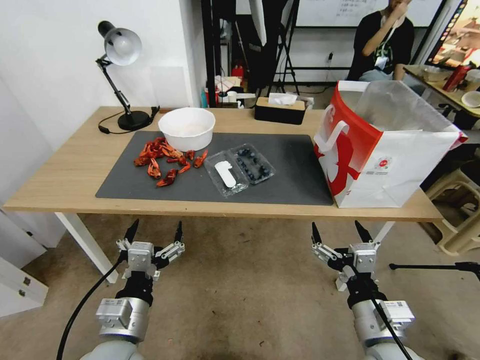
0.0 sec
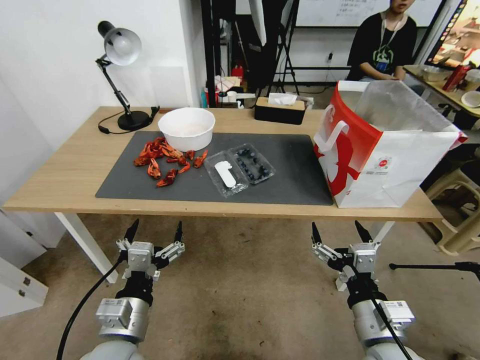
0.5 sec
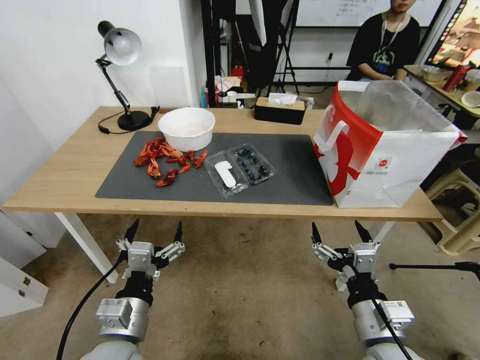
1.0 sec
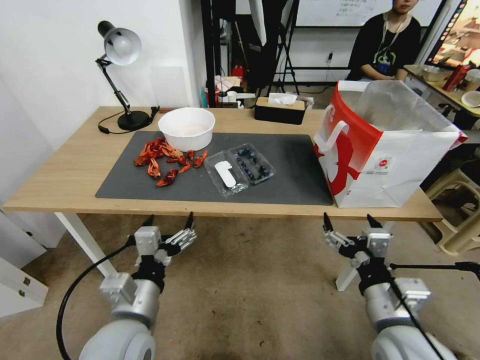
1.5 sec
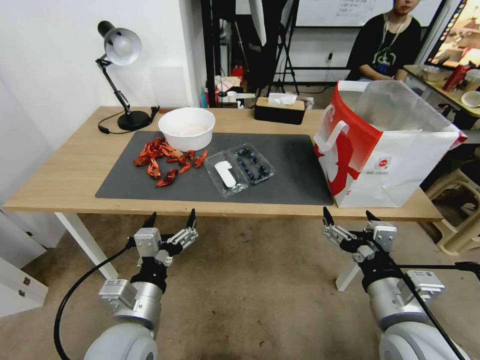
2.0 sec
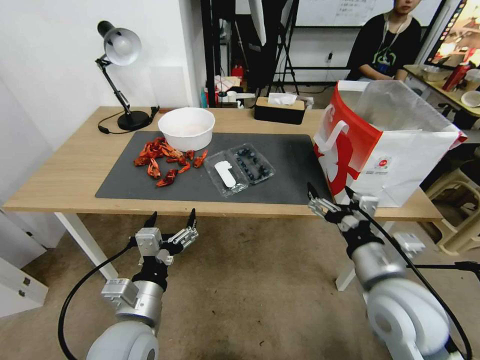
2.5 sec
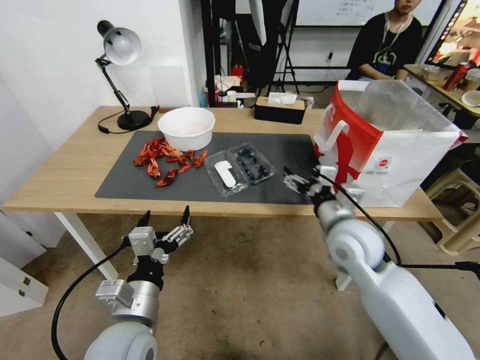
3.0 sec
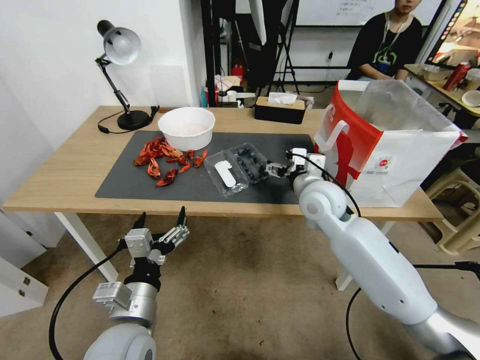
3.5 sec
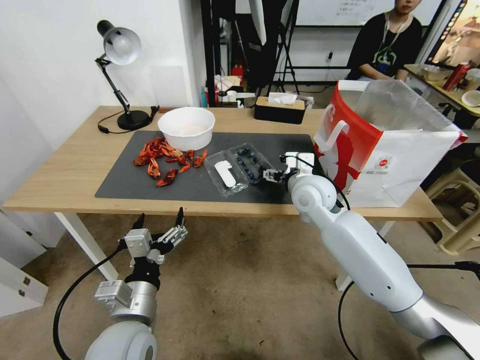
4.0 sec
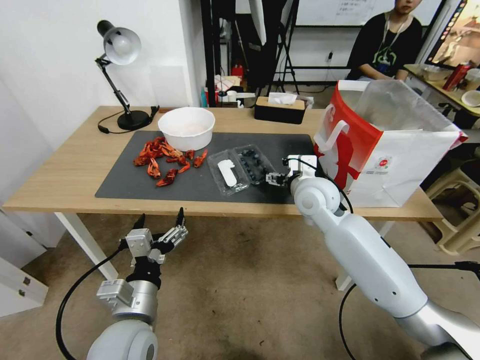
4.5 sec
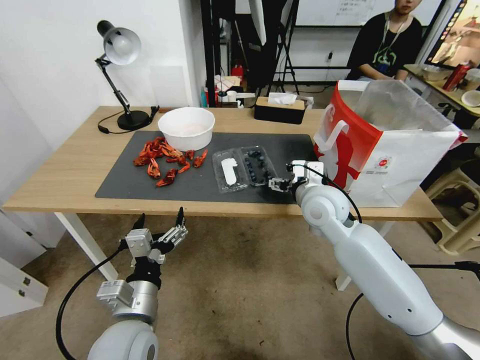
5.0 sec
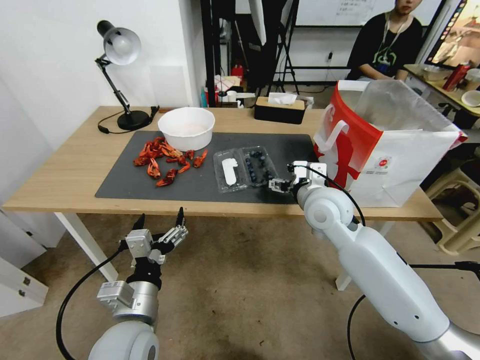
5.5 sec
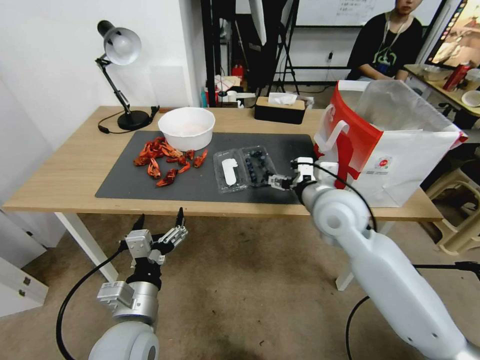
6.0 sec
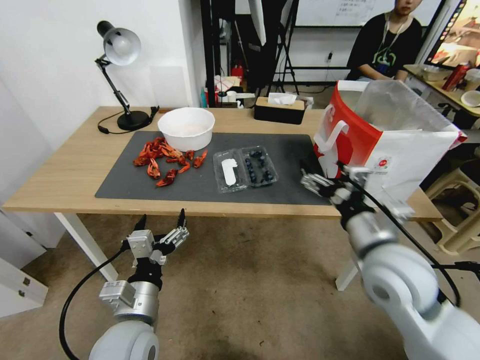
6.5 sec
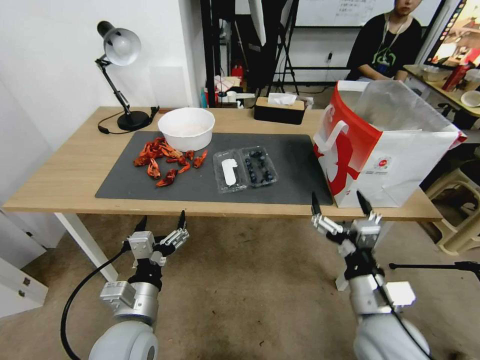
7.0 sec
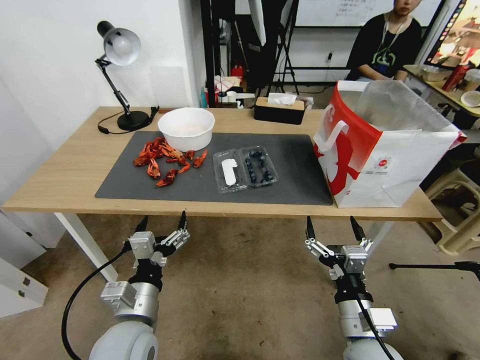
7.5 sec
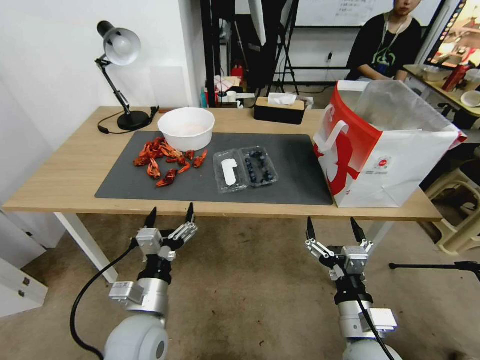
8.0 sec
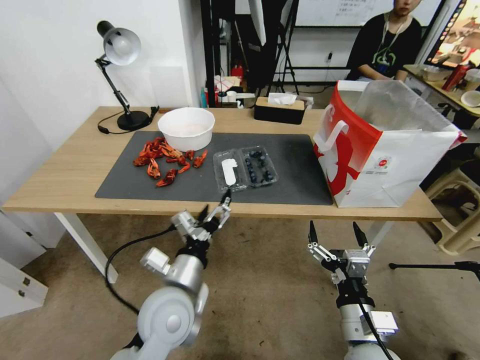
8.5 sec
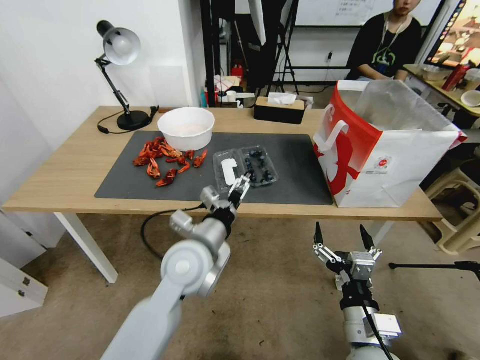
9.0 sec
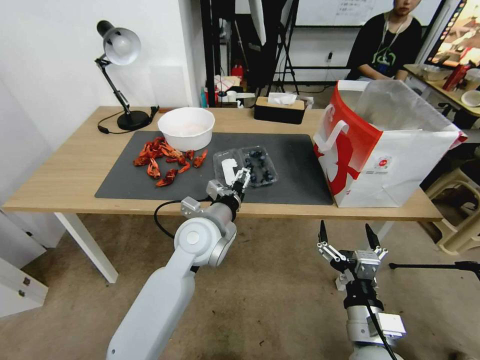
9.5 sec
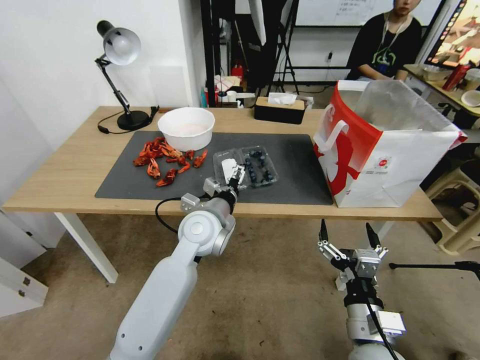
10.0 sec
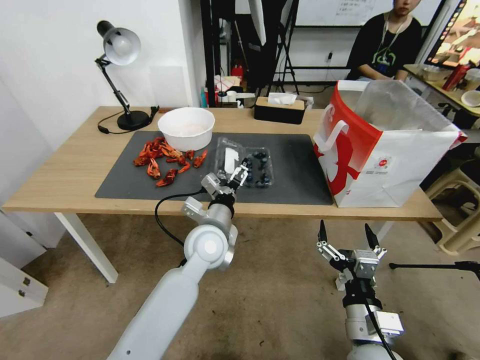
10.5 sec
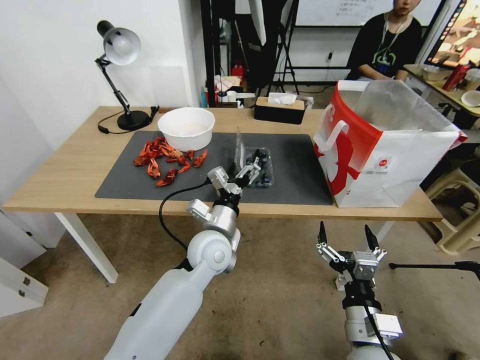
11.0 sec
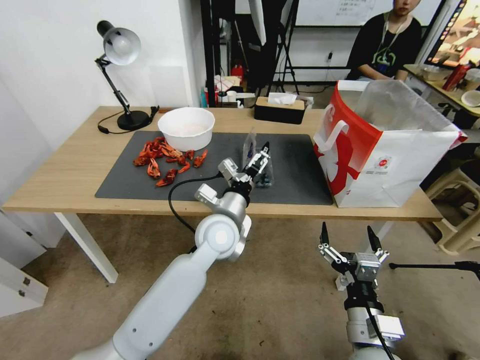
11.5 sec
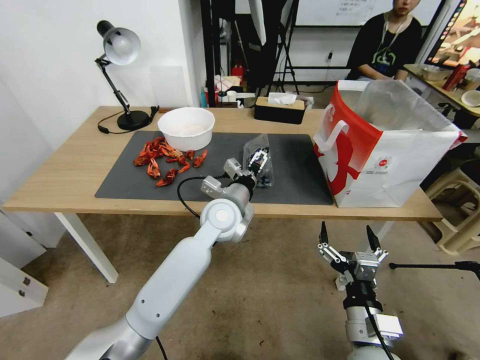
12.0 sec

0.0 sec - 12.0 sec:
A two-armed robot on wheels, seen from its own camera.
Task of the whole recording: Close the takeout container lid, then place the container into the takeout bag.
2.0 sec - 4.0 sec: The right gripper goes approximately 30 cm forward.
4.0 sec - 6.0 sec: The right gripper heads backward, covering approximately 10 cm.
6.0 sec - 8.0 sec: The right gripper shifts roughly 25 cm backward and downward.
8.0 sec - 10.0 sec: The left gripper shifts some 20 cm forward and to the right.
10.0 sec - 12.0 sec: The left gripper ends up approximately 5 cm from where it was.

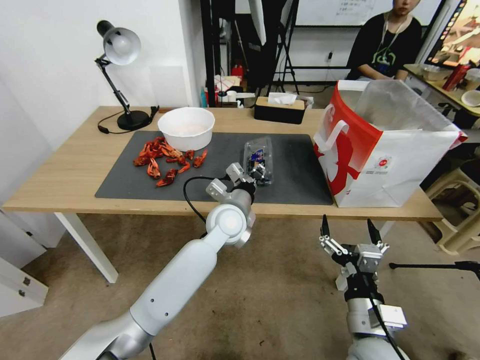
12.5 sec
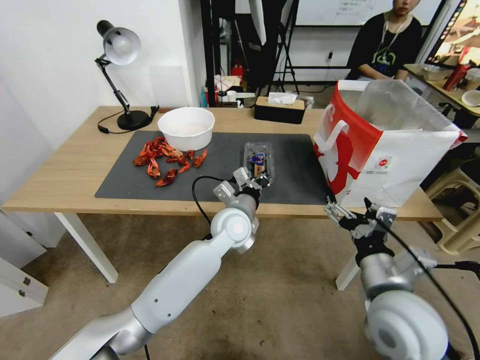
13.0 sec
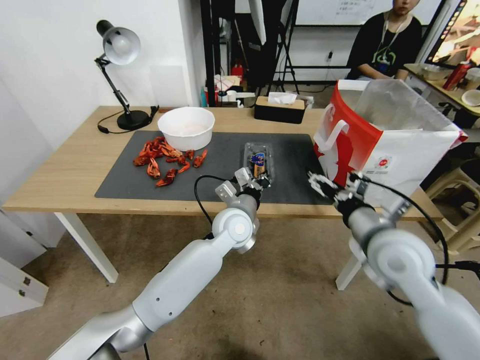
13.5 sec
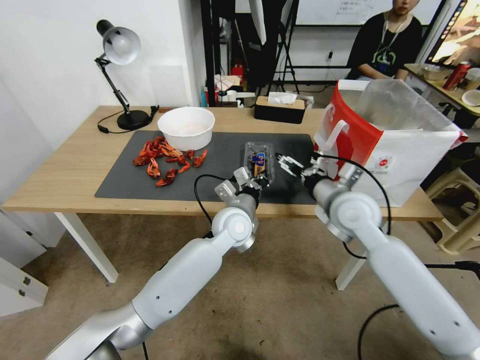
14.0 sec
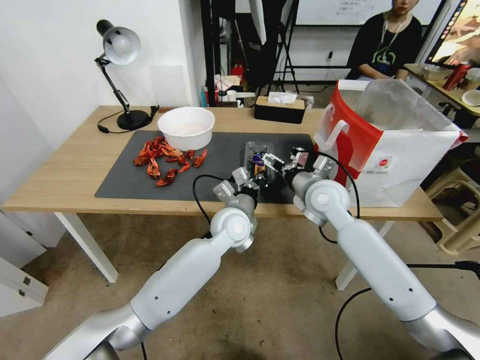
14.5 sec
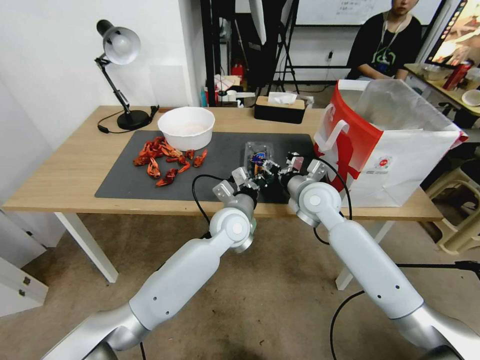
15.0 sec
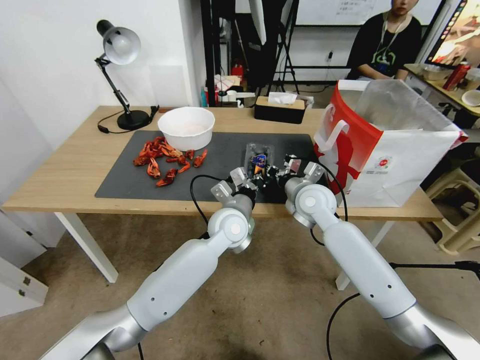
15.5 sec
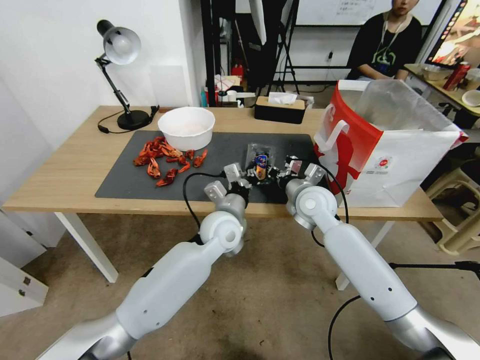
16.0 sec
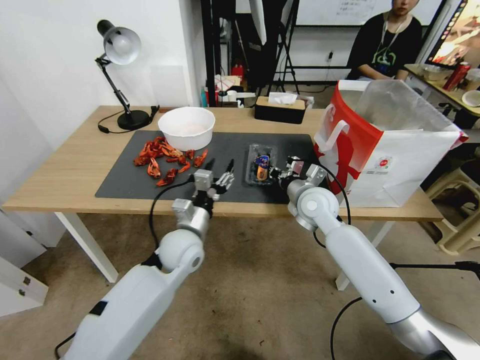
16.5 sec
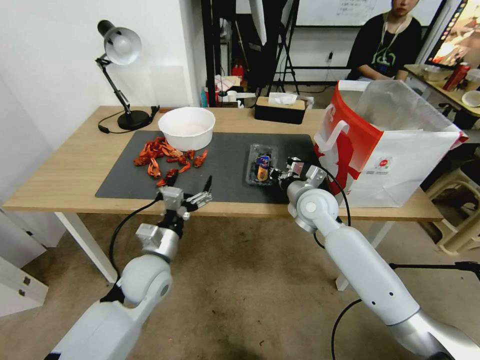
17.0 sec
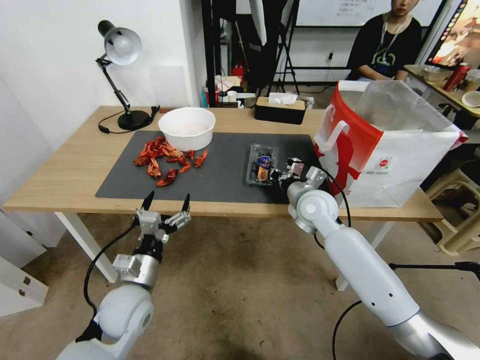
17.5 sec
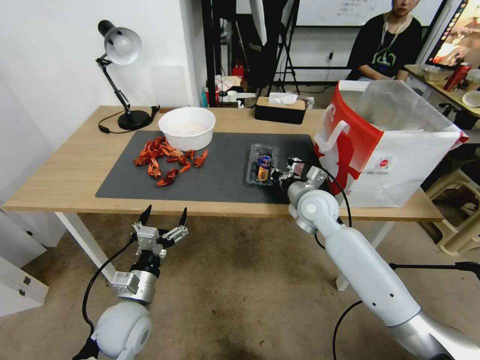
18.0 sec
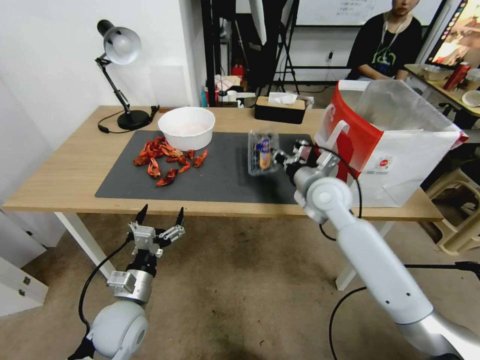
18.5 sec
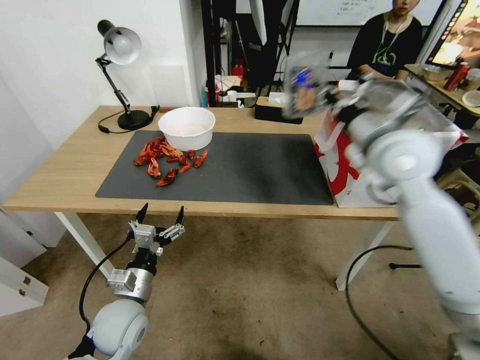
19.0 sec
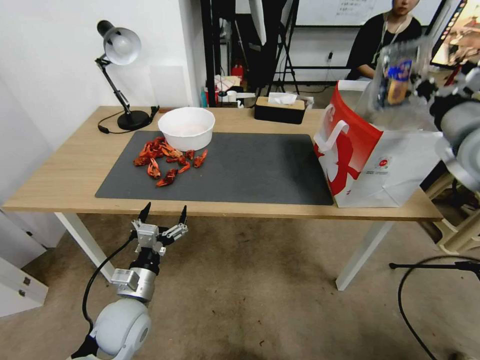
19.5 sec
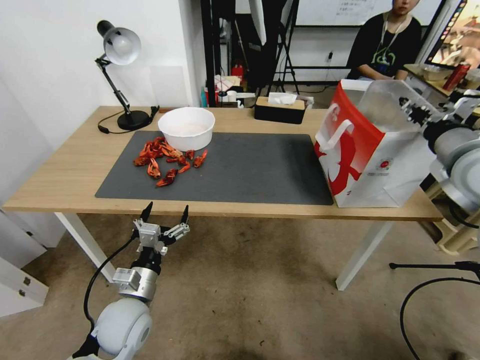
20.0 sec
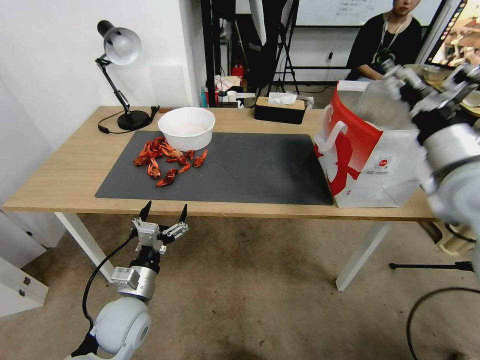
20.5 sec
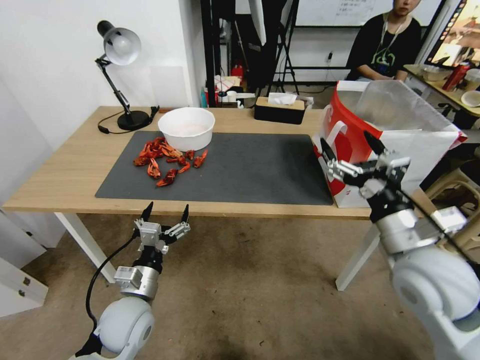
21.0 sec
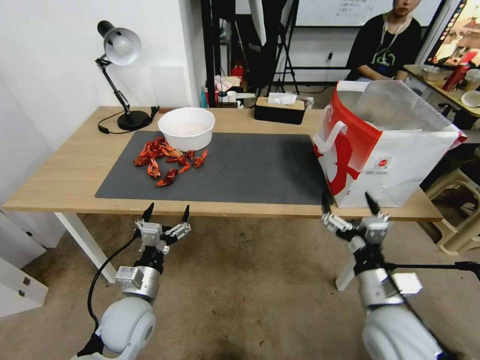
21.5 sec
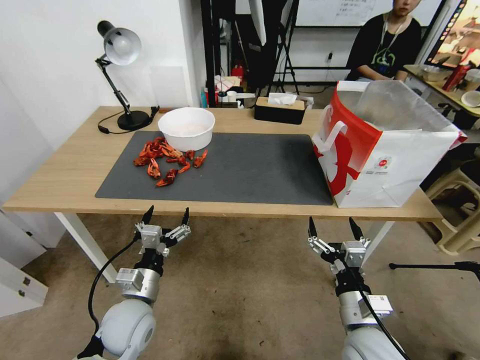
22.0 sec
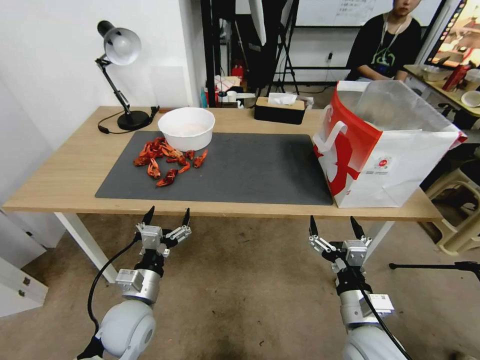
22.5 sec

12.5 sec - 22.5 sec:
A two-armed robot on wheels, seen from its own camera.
Task of the whole recording: Close the takeout container lid, then place the container into the takeout bag.
12.5 sec - 14.5 sec: The right gripper travels forward by approximately 30 cm.
14.5 sec - 16.5 sec: The right gripper closes; the left gripper moves to the left and backward, some 15 cm, and opens its fingers.
16.5 sec - 18.5 sec: The left gripper heads backward, to the left and downward, covering roughly 20 cm, and opens.
18.5 sec - 20.5 sec: The right gripper heads upward, to the right and backward, covering some 25 cm, and opens.
20.5 sec - 22.5 sec: The right gripper moves downward and backward, about 30 cm.
